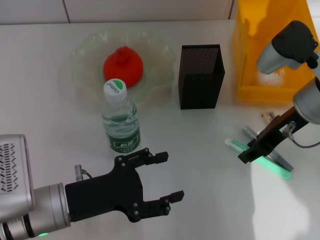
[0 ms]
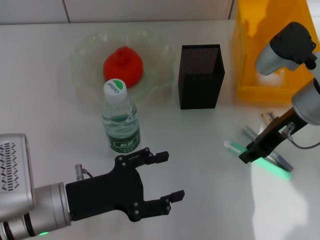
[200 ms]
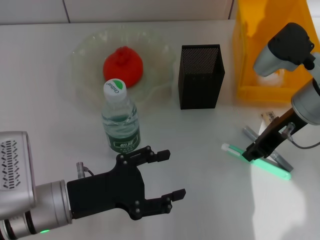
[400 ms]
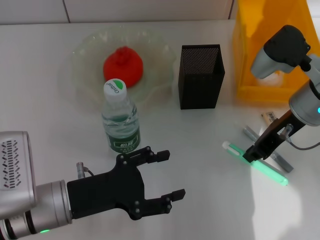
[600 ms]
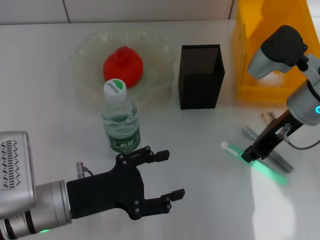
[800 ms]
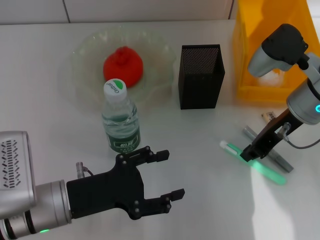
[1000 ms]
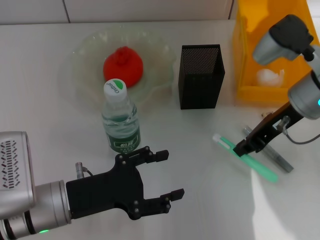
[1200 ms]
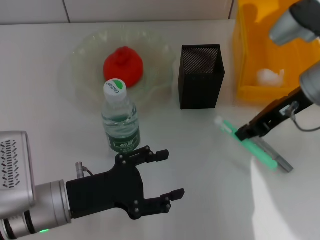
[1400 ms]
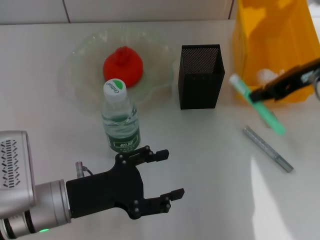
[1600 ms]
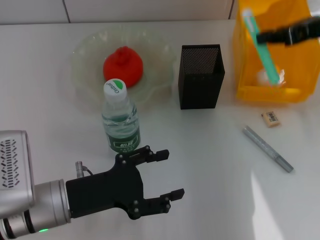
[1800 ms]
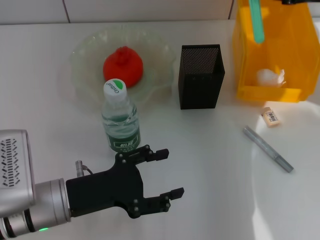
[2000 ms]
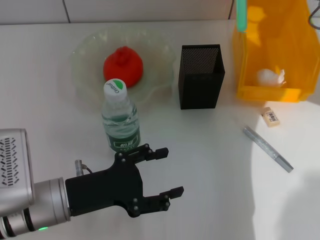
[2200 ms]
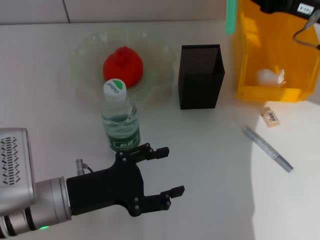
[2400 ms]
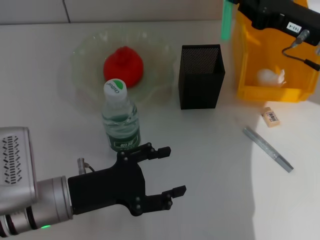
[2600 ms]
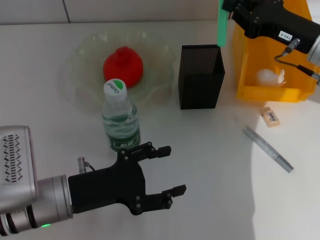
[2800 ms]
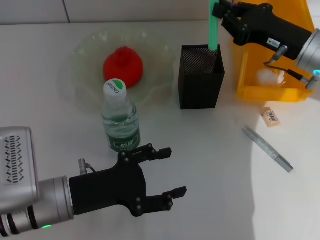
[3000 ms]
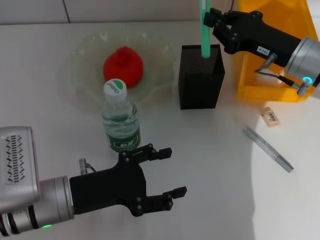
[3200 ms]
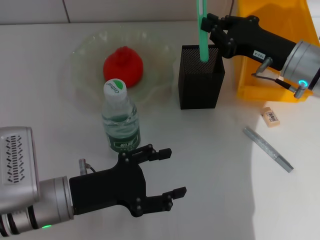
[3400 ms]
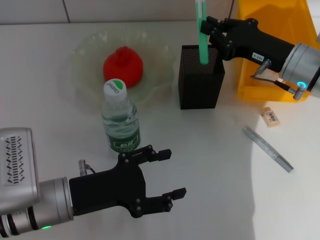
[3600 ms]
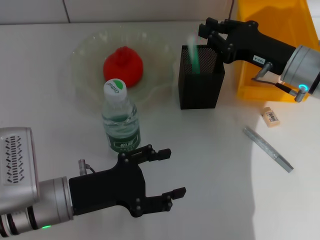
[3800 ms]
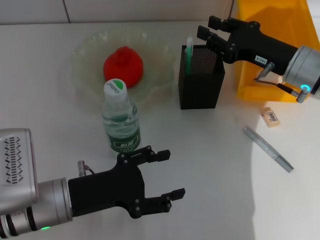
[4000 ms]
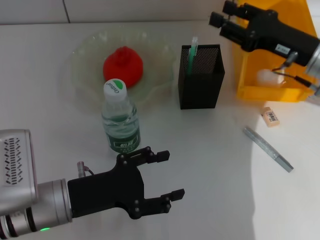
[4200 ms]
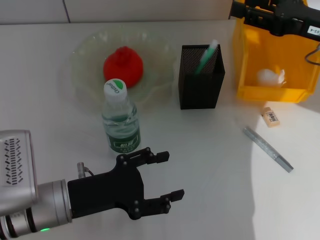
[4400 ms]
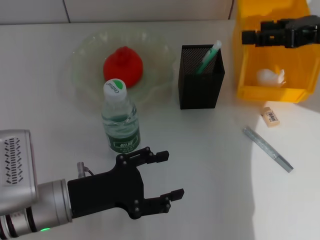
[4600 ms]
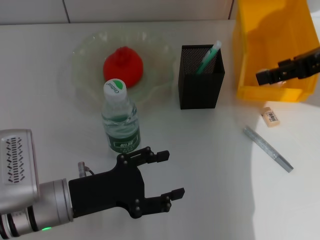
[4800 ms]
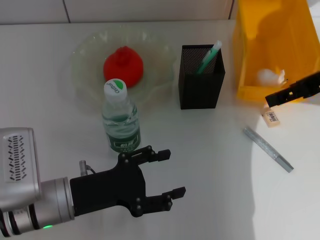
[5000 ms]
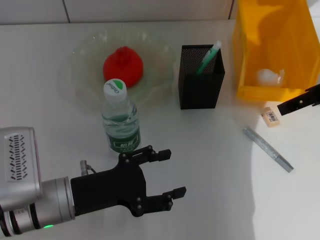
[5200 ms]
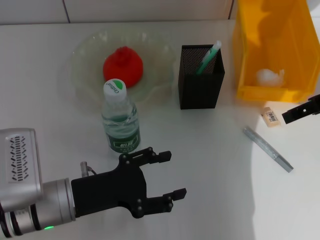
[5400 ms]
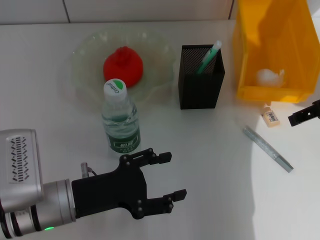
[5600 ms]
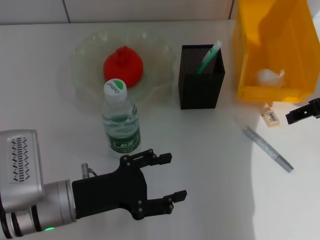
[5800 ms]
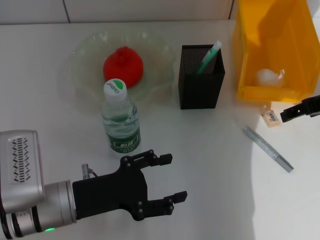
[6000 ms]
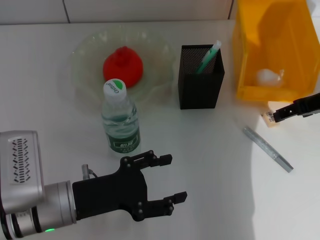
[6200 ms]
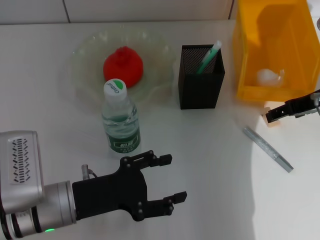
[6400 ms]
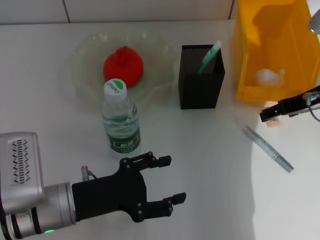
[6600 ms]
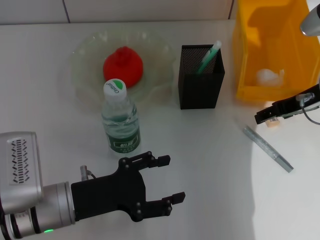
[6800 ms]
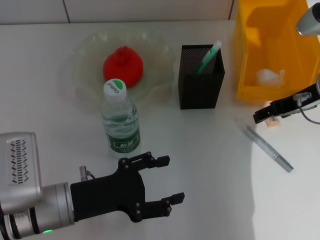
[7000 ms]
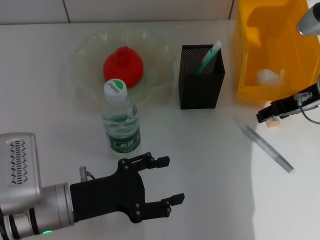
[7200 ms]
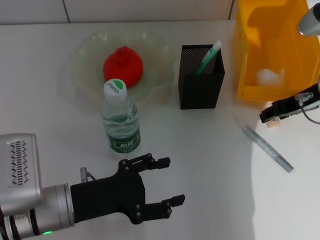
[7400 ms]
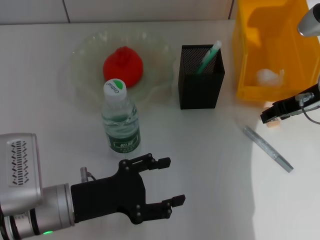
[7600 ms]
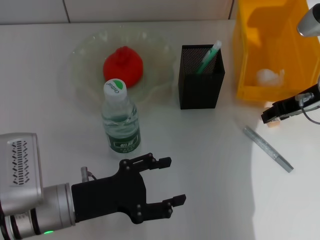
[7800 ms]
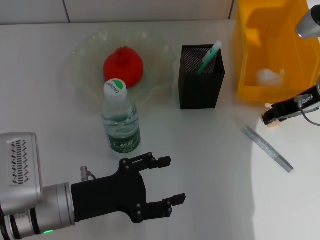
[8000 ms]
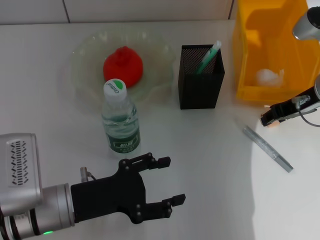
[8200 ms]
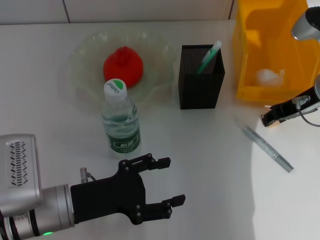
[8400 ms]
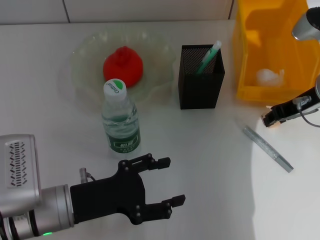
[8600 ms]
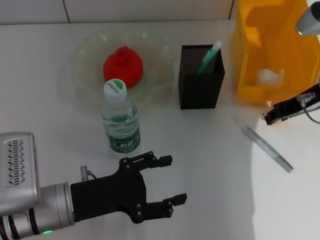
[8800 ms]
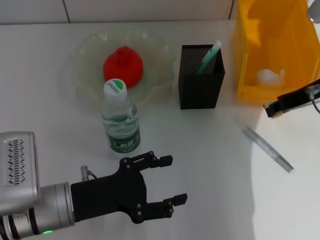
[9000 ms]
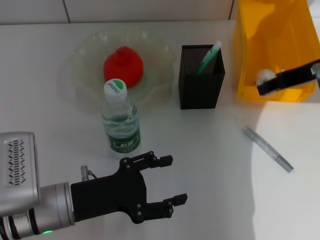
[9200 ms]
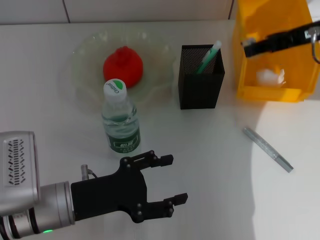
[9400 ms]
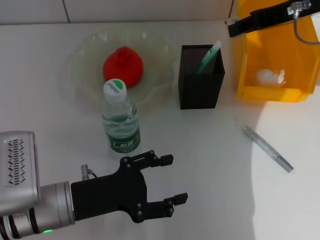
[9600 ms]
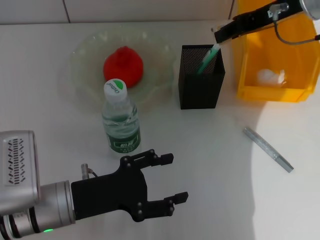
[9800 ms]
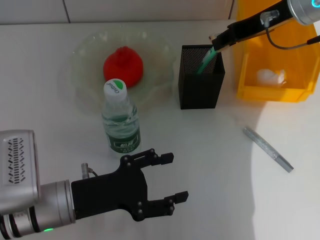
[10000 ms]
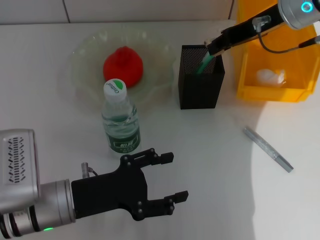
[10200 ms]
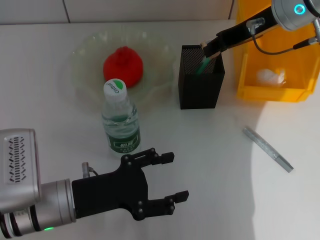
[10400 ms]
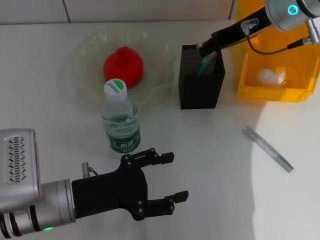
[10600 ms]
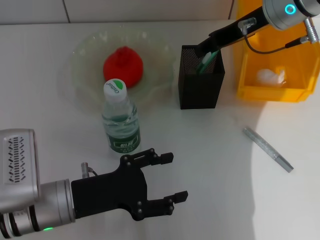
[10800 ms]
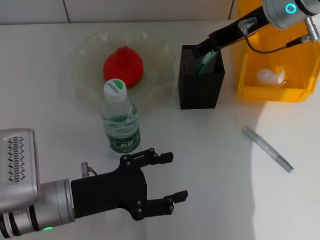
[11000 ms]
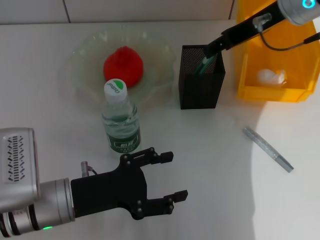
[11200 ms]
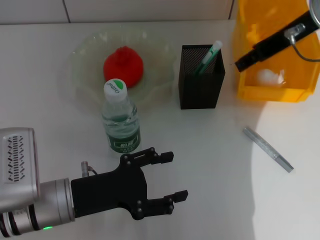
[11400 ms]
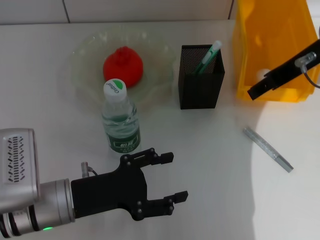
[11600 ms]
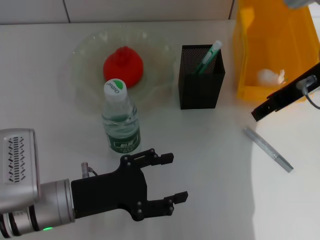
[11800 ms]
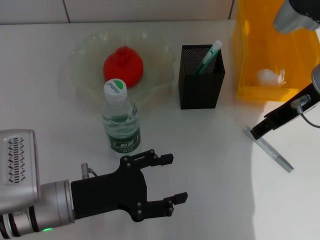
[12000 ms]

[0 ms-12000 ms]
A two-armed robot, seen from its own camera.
Step, 800 ms to 4200 ms: Place the blue utility knife into the pen holder with the right hand.
Step, 4400 ms to 7800 ms: Grab the eraser with the right hand.
Step, 8000 ms to 11000 ms: Put the eraser into the pen holder with the right hand.
0 ms to 1600 ms: The right gripper heads upward, covering some 5 cm, and closes its fingers.
1600 ms to 3000 ms: The right gripper goes approximately 10 cm downward.
3000 ms to 4400 ms: The right gripper heads upward, covering about 5 cm, and opens up.
6000 ms to 7600 ms: The right gripper moves roughly 5 cm.
7600 ms to 9000 ms: The right gripper closes its fingers.
9000 ms to 10400 ms: The right gripper heads to the left, forward and upward, covering some 10 cm.
10400 ms to 12000 ms: The right gripper heads backward, covering approximately 10 cm, and opens up.

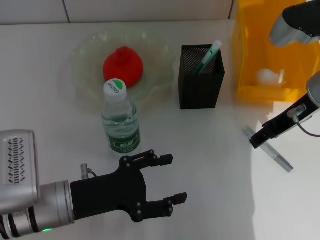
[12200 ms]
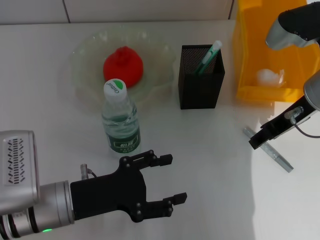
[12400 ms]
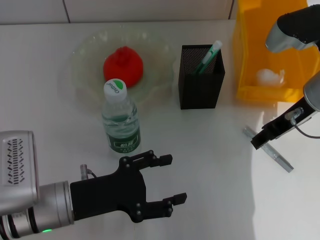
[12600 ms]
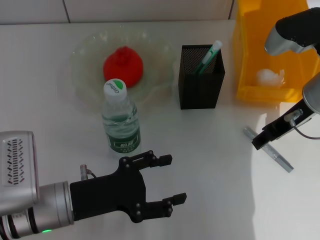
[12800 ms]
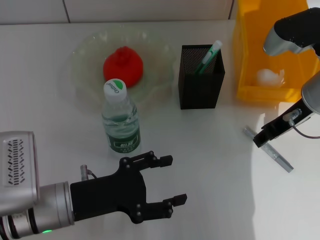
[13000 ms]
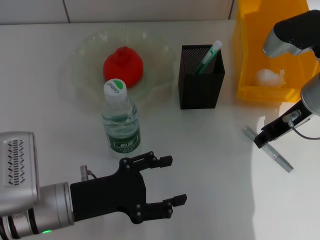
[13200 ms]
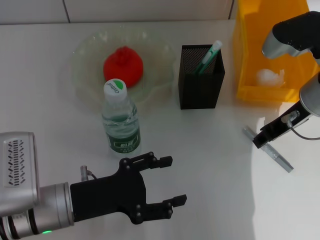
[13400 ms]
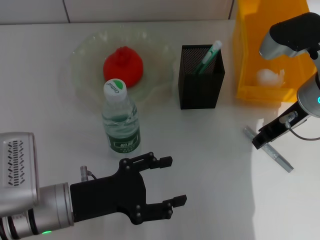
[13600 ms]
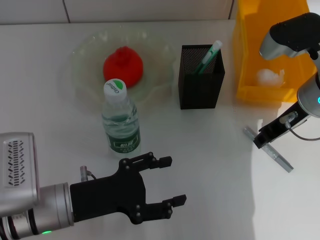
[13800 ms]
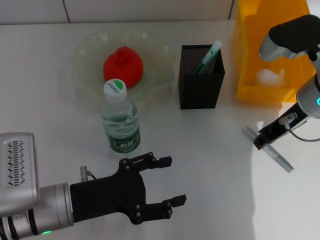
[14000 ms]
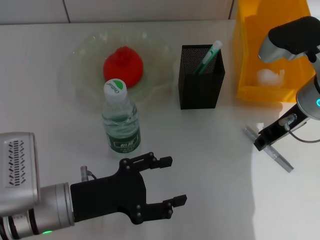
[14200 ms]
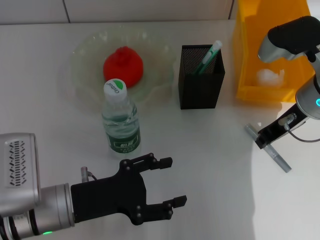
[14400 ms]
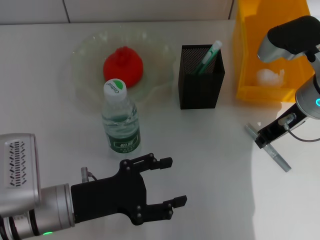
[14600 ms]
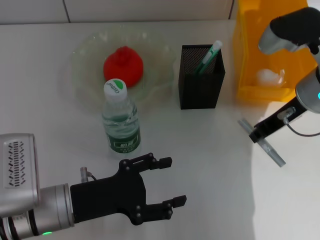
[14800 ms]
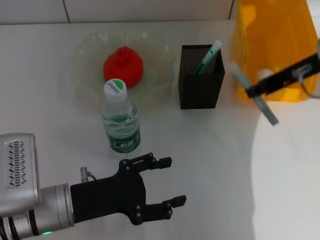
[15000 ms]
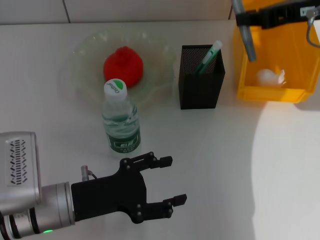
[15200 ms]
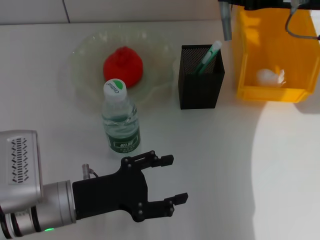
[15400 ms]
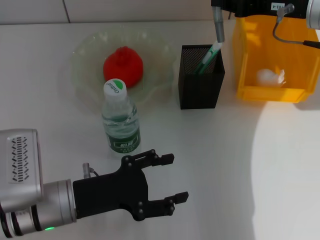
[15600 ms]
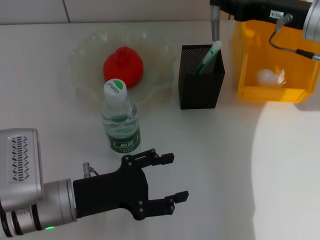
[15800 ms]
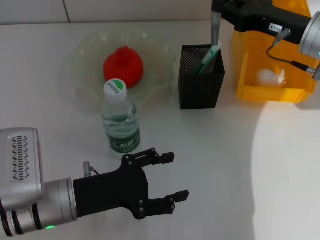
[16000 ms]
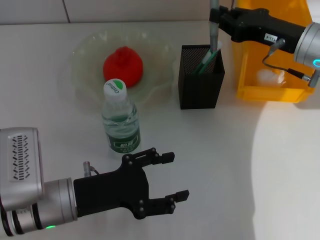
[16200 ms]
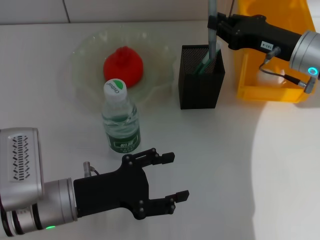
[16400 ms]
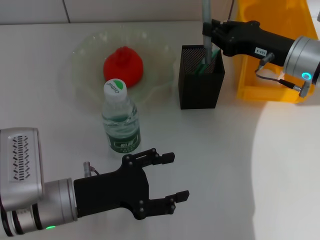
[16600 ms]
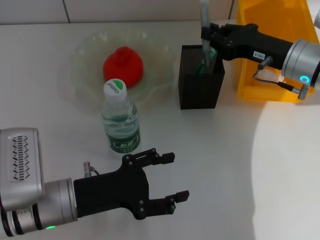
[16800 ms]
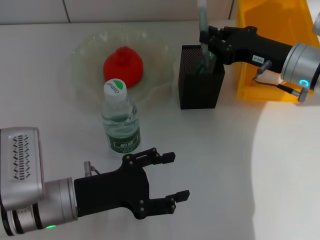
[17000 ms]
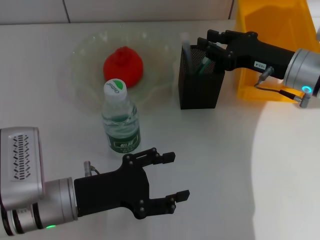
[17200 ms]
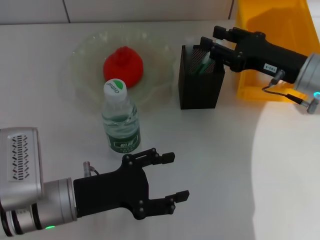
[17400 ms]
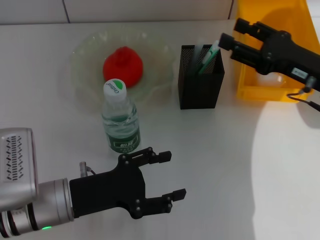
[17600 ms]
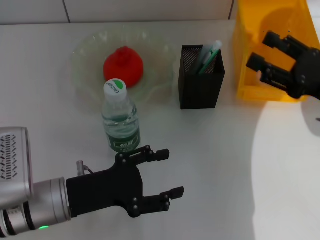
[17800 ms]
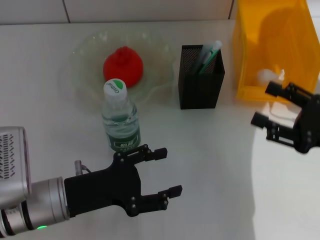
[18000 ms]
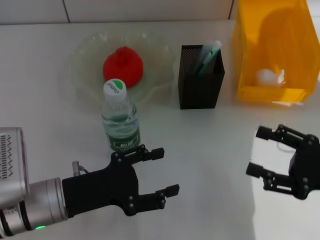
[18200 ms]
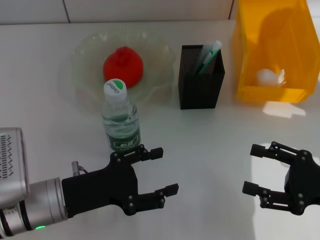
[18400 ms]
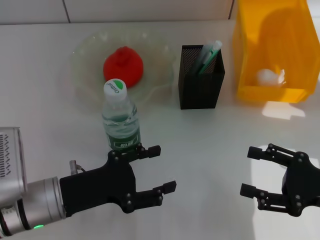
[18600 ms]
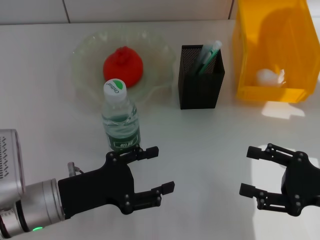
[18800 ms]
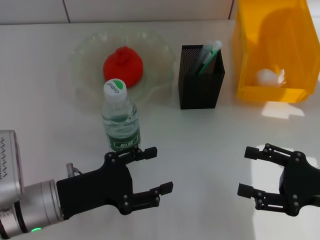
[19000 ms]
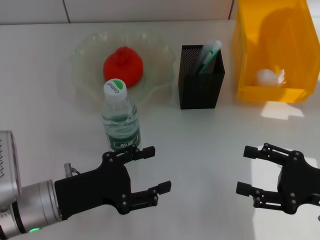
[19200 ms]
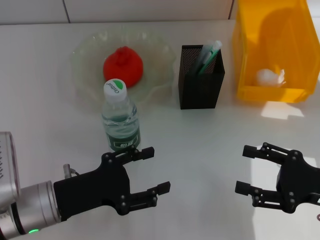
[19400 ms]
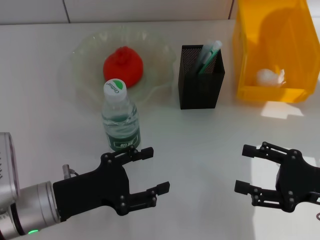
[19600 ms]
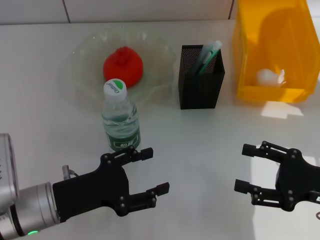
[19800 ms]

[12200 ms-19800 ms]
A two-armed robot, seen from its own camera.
Step, 12200 ms to 14200 ms: Grab the gray glue with the right hand.
Step, 14400 ms to 17400 ms: Place the gray glue into the pen holder with the right hand.
12200 ms to 13800 ms: The right gripper closes.
13800 ms to 15200 ms: The right gripper shifts approximately 10 cm upward.
15200 ms to 16800 ms: The right gripper goes roughly 15 cm downward.
16800 ms to 18200 ms: The right gripper travels backward and to the right by some 20 cm, and opens its fingers.
18200 ms to 19800 ms: The grippers stay close to where they were, moving slightly.
